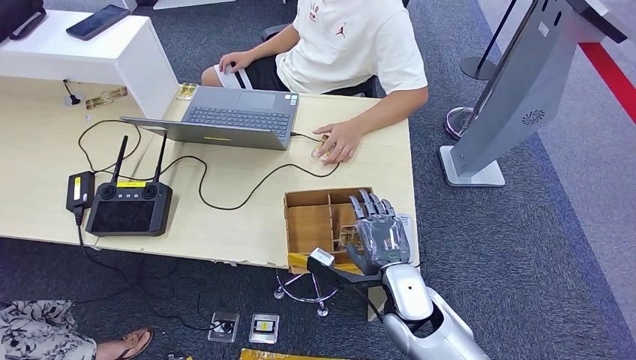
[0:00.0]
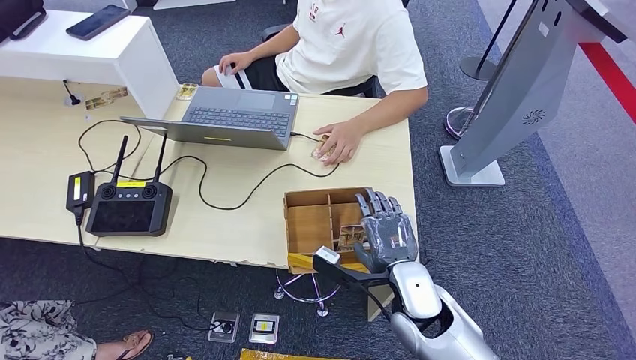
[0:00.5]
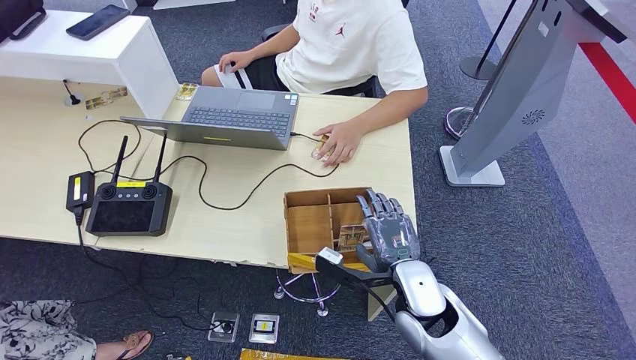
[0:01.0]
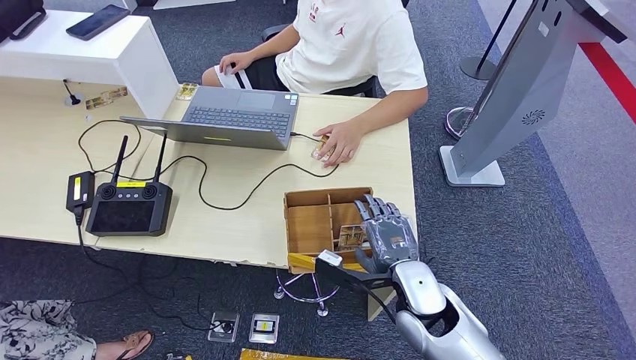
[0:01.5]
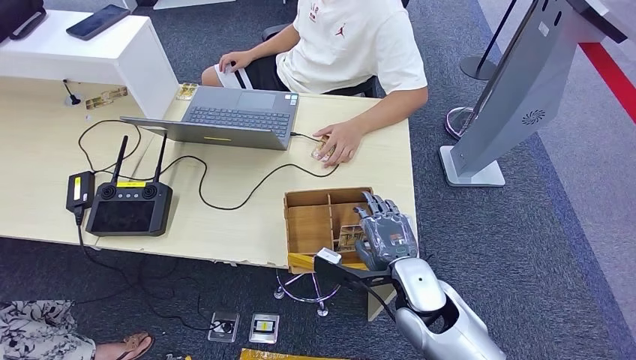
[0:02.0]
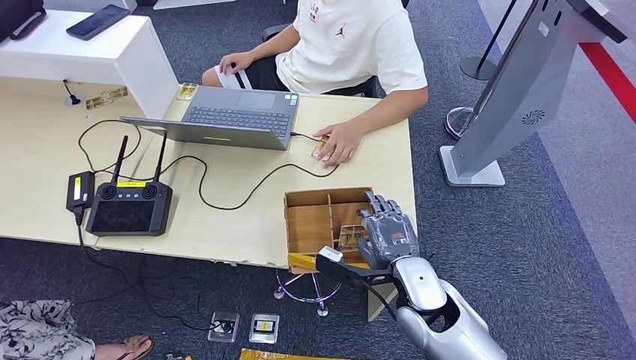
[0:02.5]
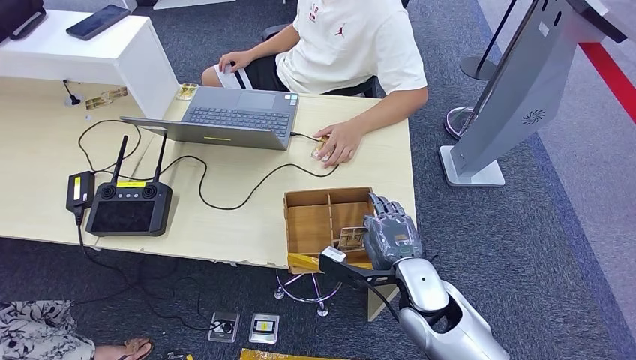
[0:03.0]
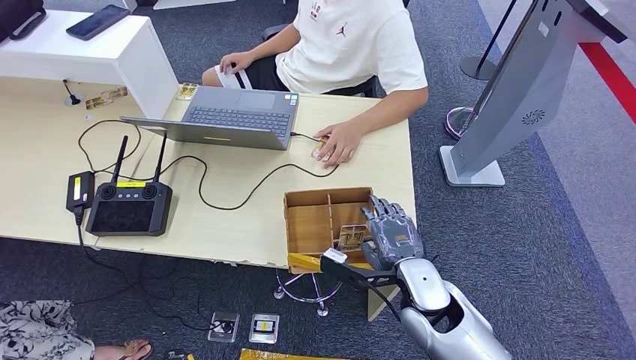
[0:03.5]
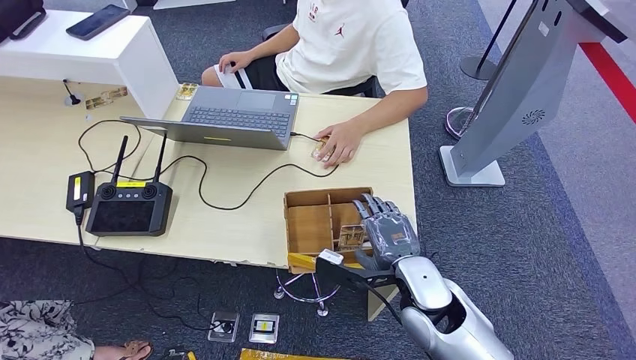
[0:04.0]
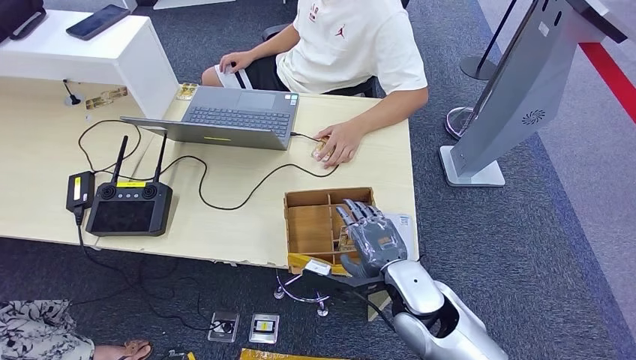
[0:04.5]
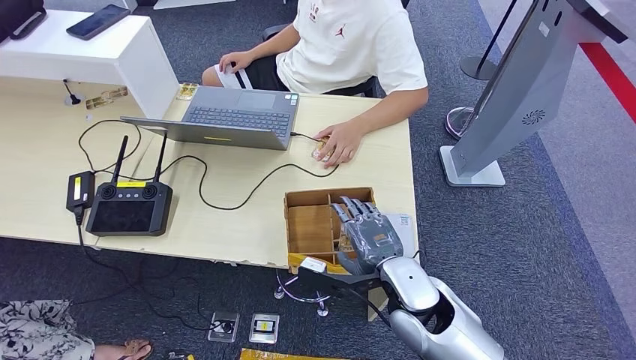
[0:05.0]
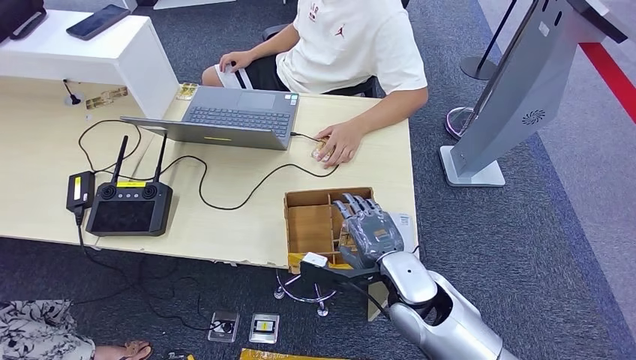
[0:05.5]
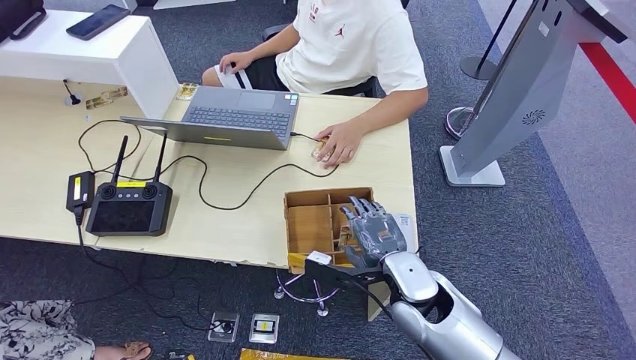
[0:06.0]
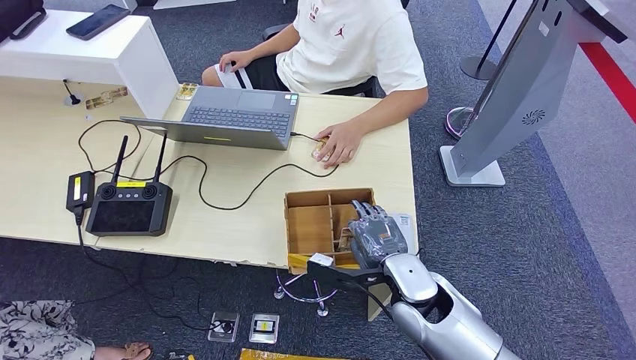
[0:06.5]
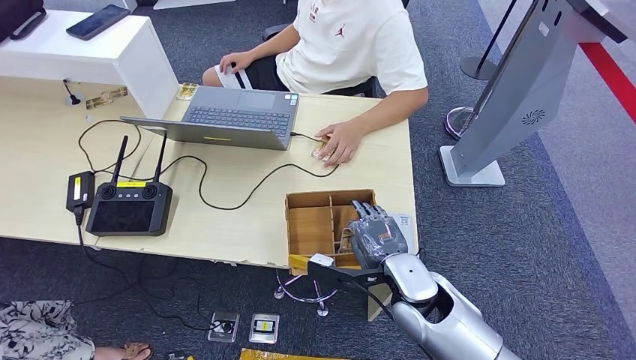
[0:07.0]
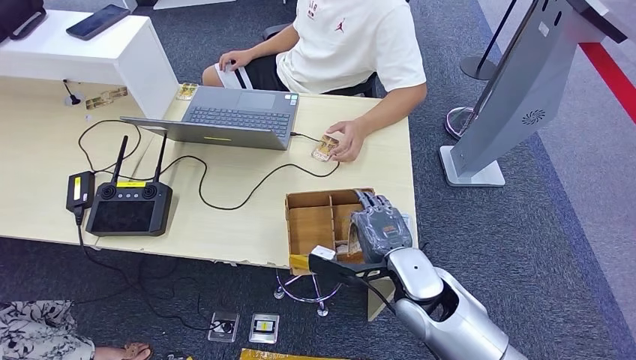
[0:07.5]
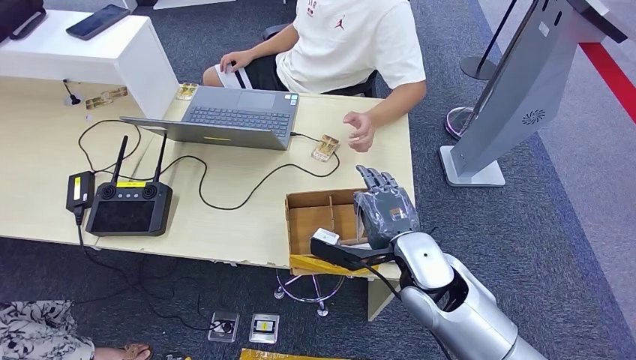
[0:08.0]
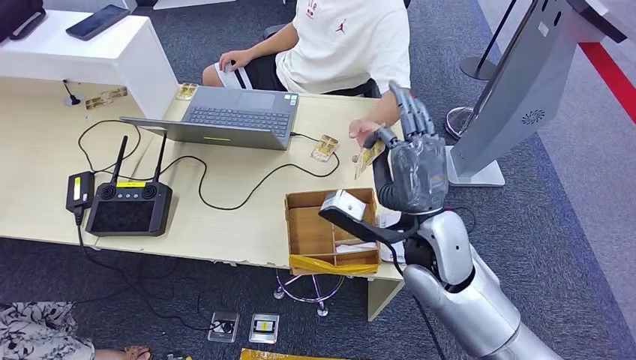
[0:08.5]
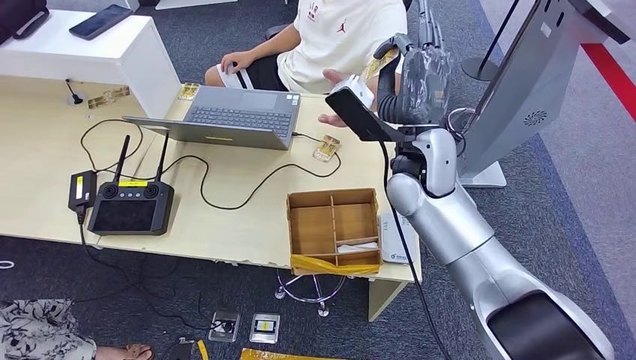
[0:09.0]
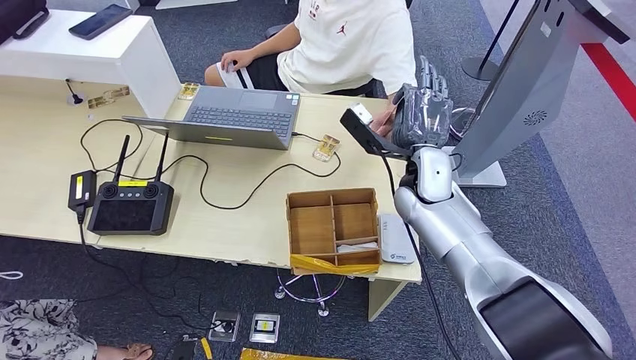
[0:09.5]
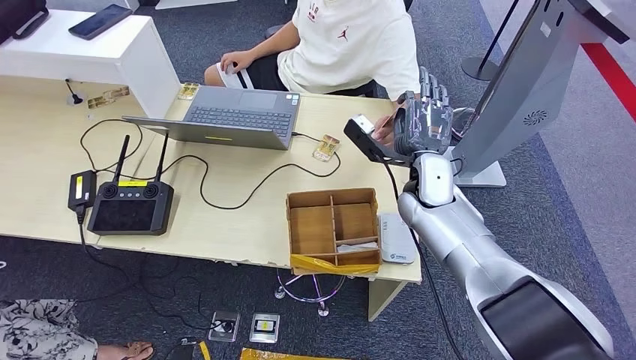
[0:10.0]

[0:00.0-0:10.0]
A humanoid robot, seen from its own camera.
Step, 0:05.0 to 0:08.0: Pick up the room key from the key card box.
Step, 0:09.0 to 0:10.0: Hand the room key to the person.
0:00.0 to 0:02.0: The hands make only small movements.
0:02.0 to 0:04.0: Neither hand changes place.
0:04.0 to 0:08.0: The hands move only a little.
